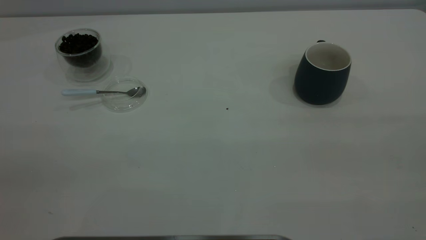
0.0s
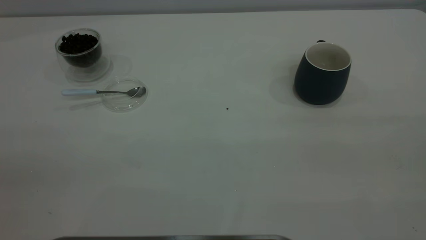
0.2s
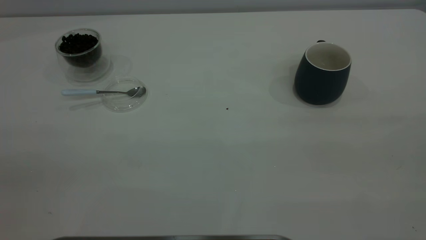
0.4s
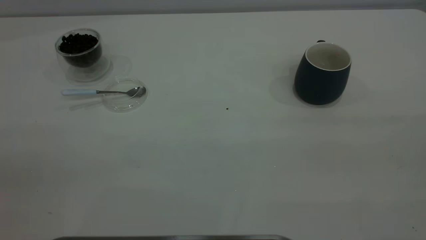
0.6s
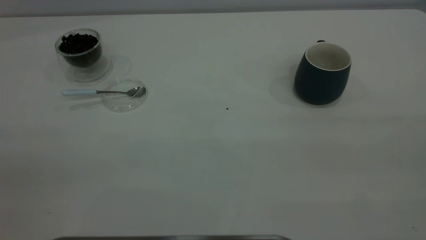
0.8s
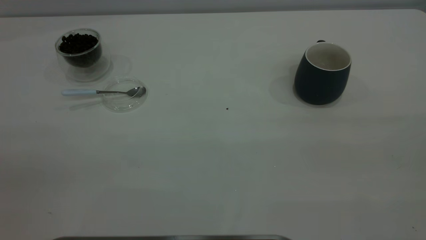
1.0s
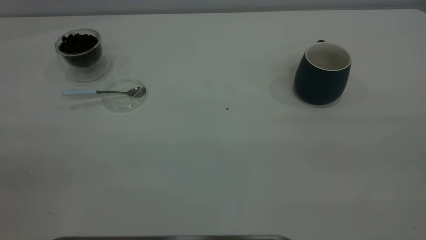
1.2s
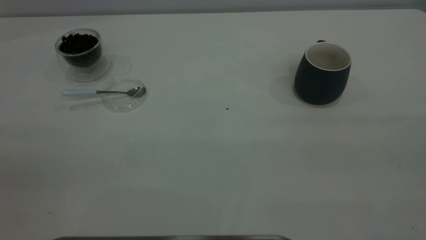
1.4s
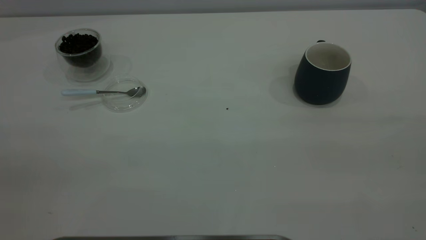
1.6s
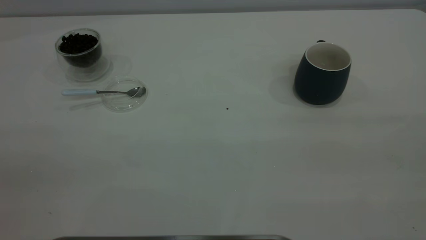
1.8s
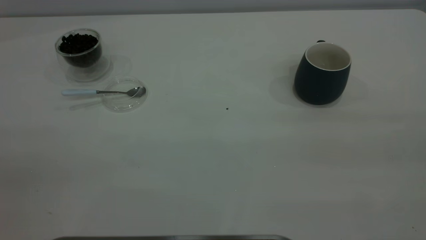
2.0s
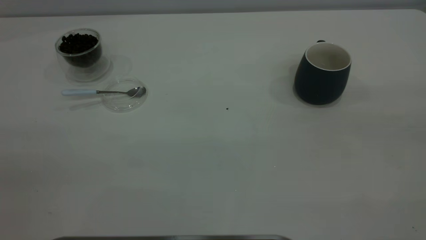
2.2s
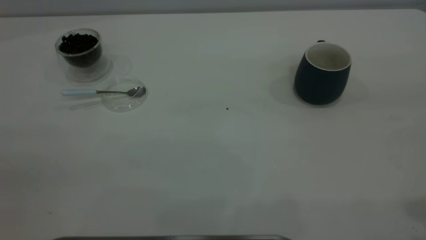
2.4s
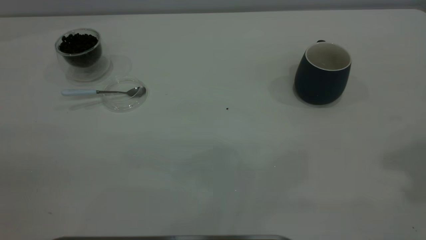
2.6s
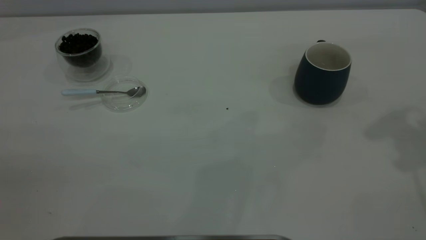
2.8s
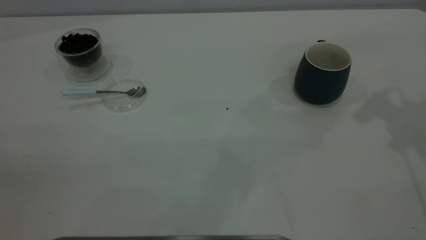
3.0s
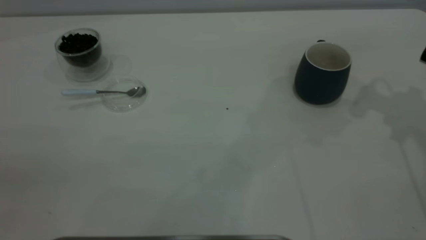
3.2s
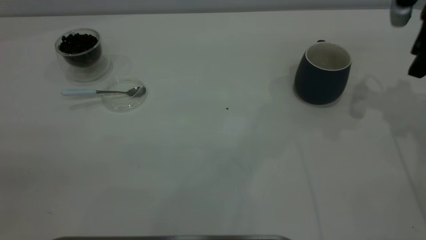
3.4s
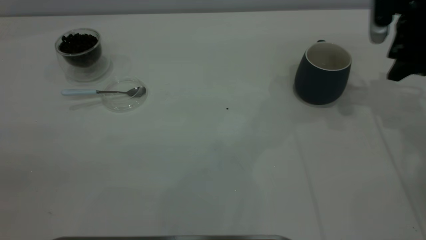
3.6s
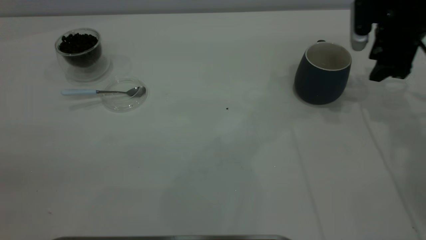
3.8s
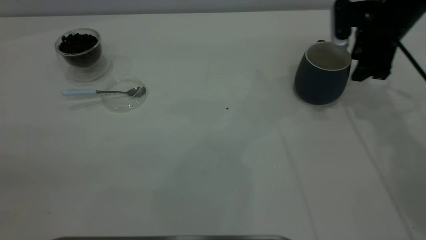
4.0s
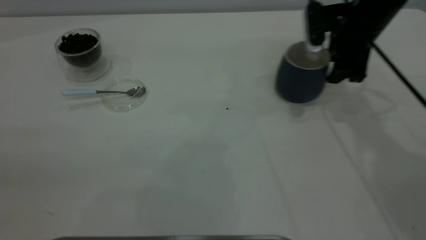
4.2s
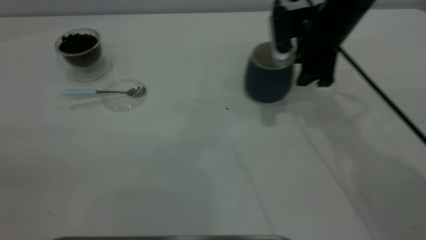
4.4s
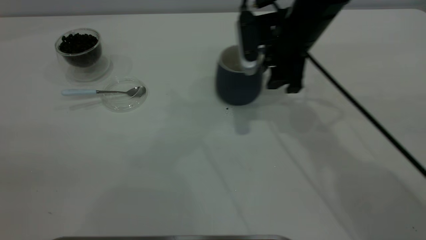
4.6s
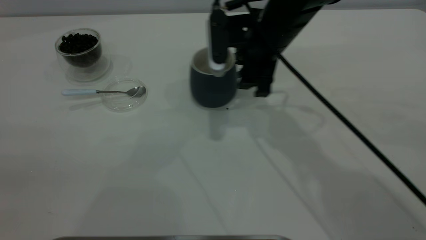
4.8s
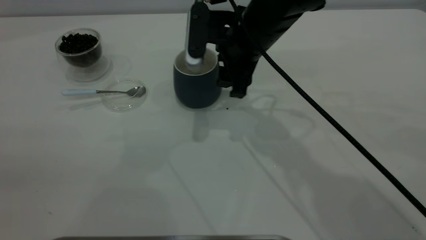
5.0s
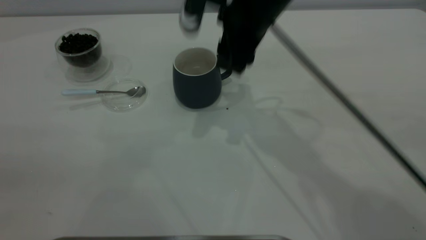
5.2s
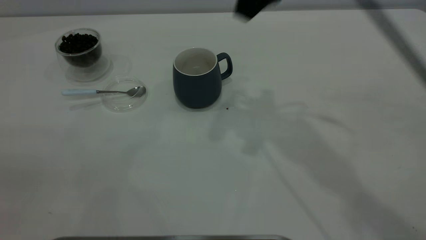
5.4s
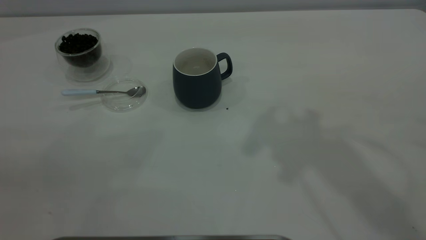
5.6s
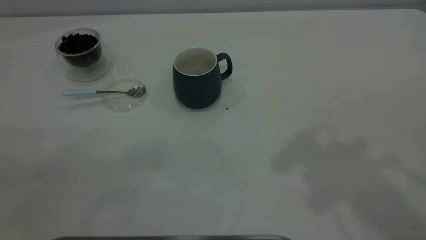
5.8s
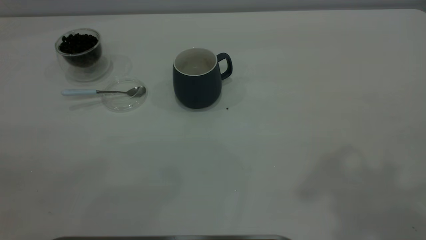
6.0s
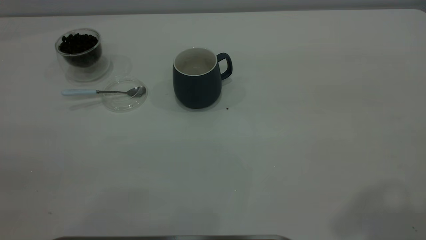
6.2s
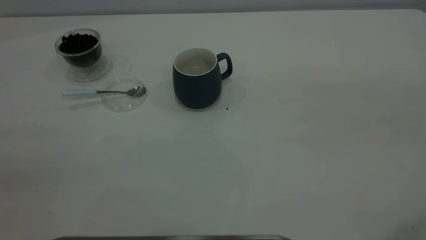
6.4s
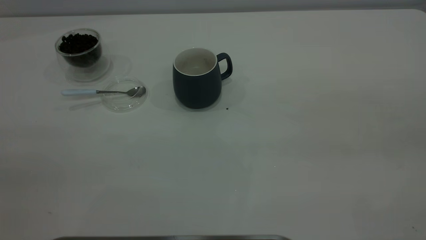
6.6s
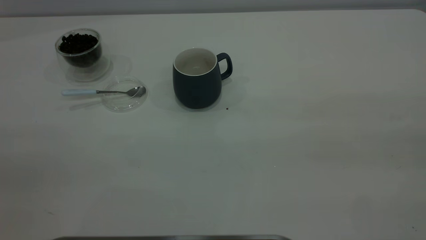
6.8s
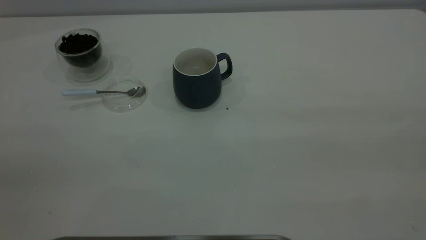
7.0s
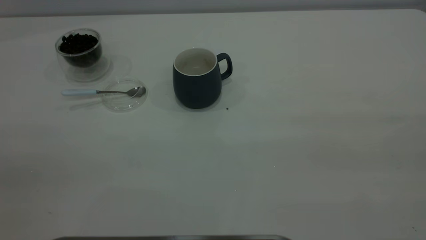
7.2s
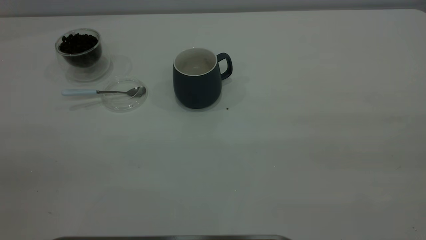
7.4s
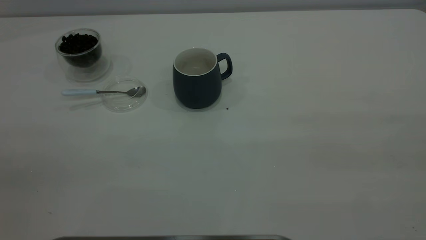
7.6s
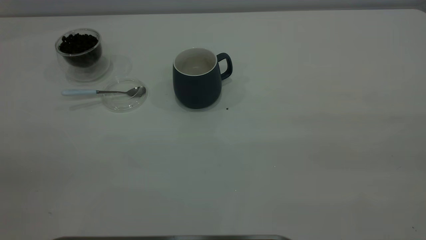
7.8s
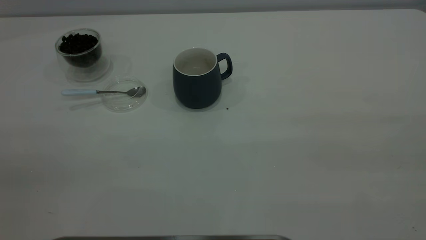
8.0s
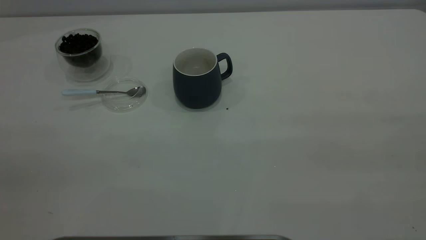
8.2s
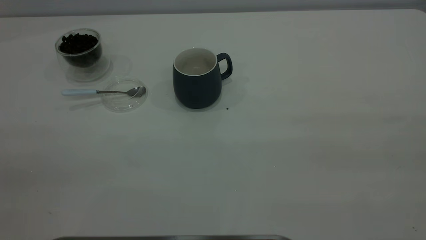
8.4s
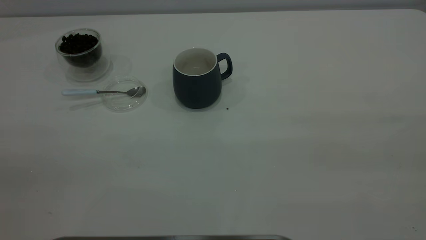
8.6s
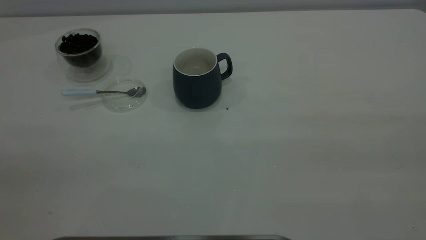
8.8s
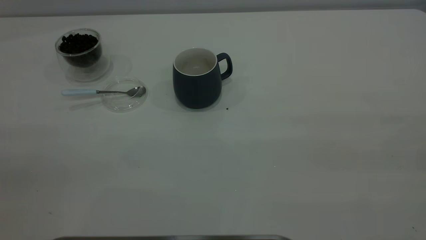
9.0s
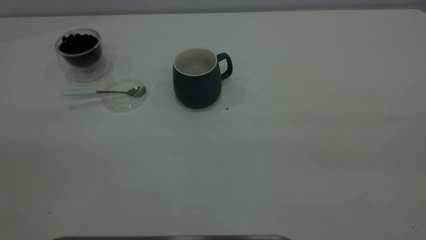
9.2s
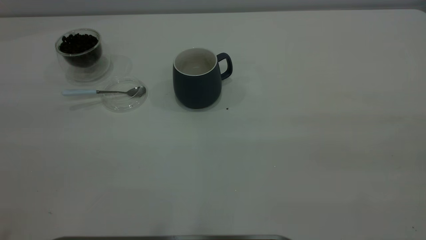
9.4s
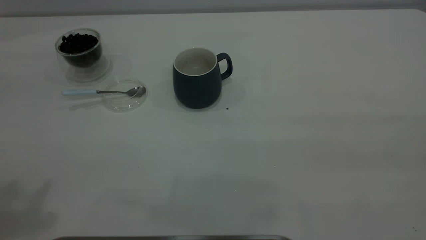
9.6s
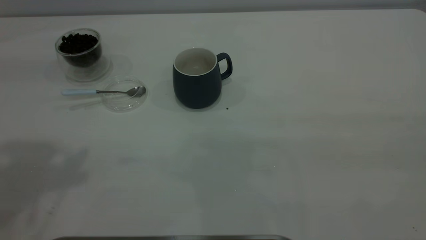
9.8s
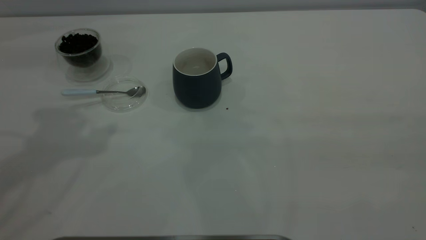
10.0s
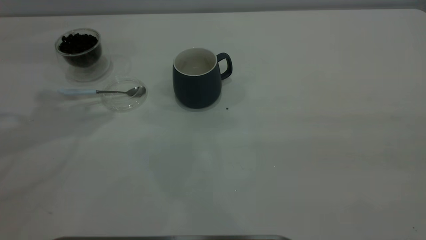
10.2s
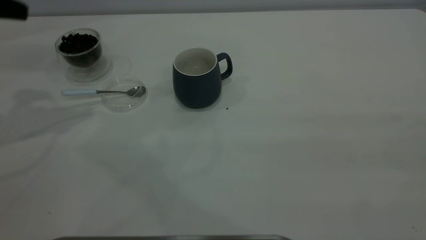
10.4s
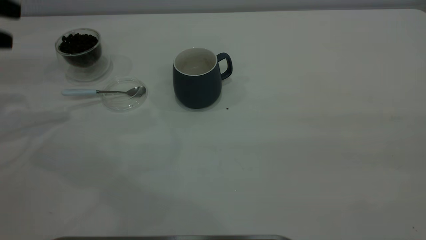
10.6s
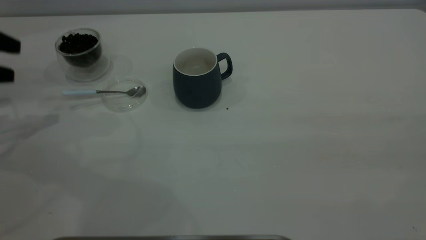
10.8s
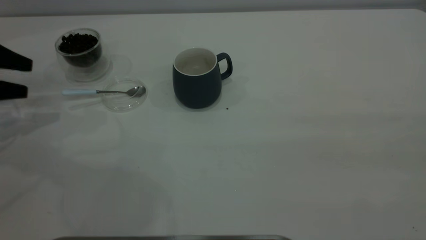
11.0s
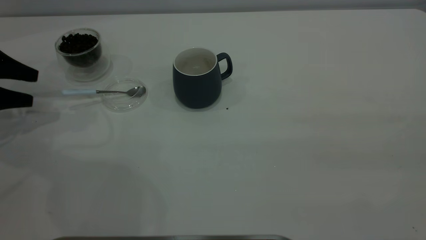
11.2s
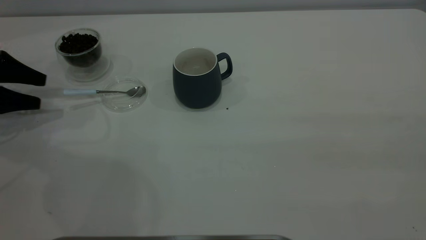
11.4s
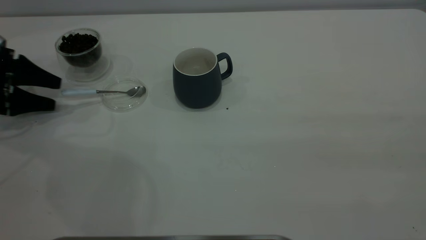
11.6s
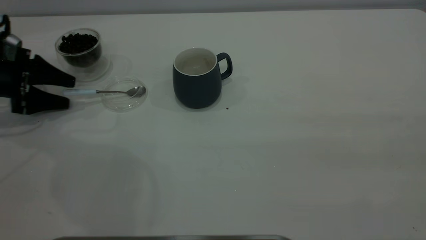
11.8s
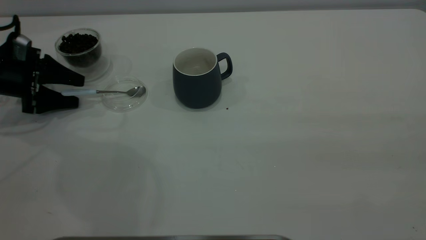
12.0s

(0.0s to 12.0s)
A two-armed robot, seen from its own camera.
Task of the whole recording: the right gripper place the grey cup in the center of the table, the left gripper take the blue spoon from the cup lid and scoop out the coffee beans from the coffee cup and put them into the grey cup, the left gripper put the spoon back into the cup lid.
Step, 0.0s - 5.2s: Move the cup to the center of view.
0.0s - 1.6s: Both grippers stay about where they are.
3.0s - 4.4s: The right gripper shifts some 20 cm to the left and downward.
4.4s - 6.0s: The right gripper shifts approximately 40 cm upward and backward.
7.6s - 9.0s: Both grippers stay about where they are.
10.4s - 12.0s: The left gripper goes approximately 20 cm downward.

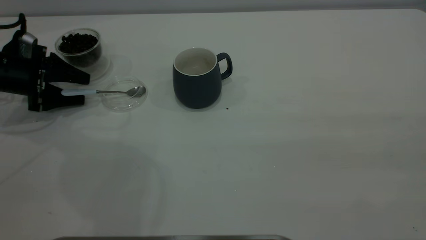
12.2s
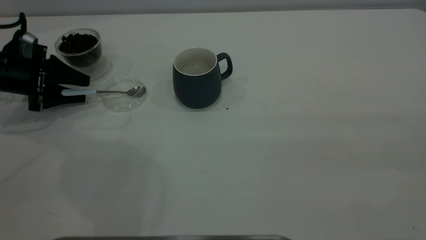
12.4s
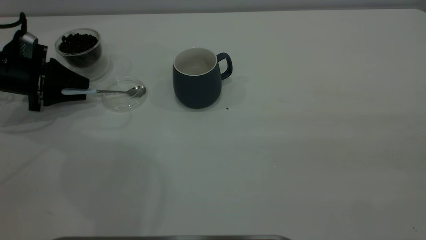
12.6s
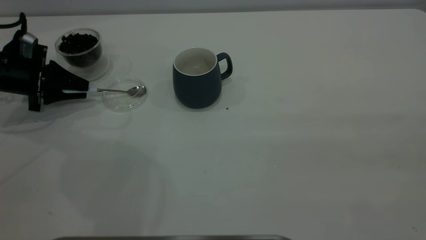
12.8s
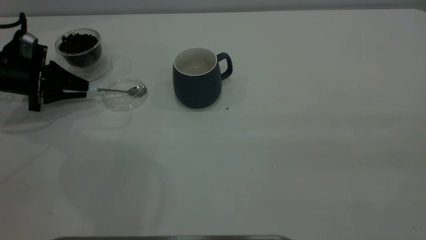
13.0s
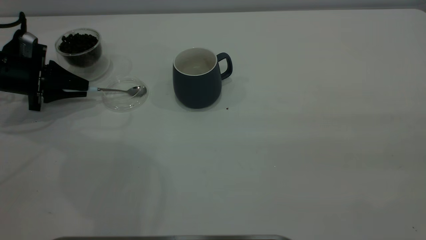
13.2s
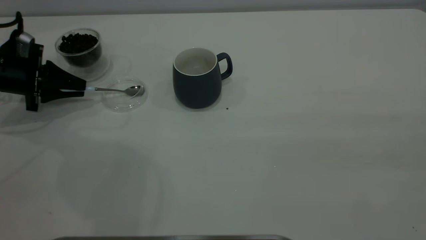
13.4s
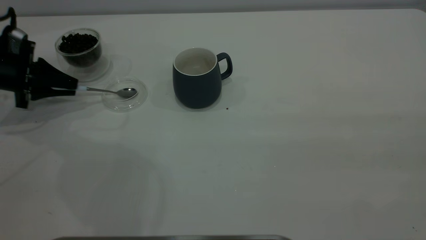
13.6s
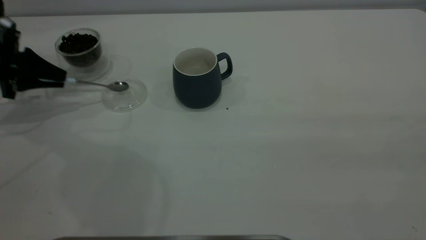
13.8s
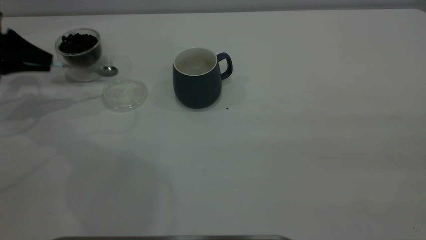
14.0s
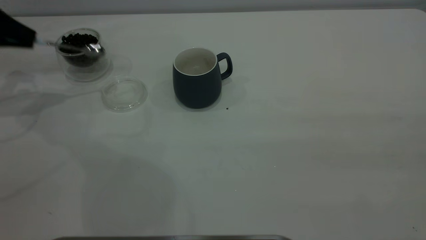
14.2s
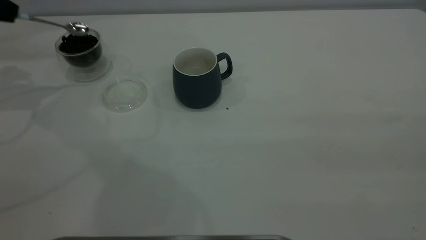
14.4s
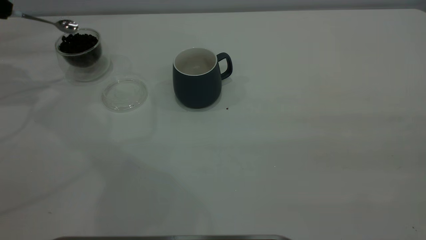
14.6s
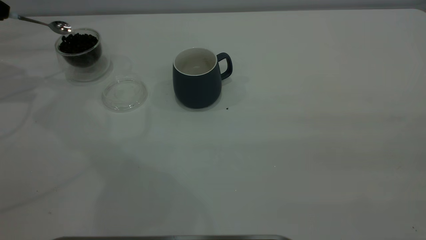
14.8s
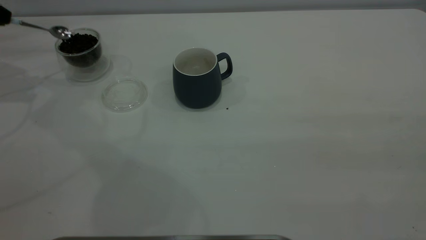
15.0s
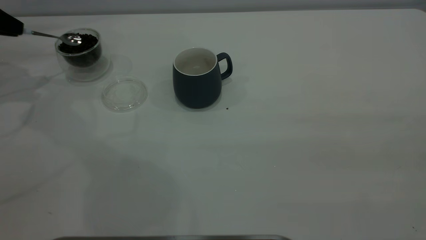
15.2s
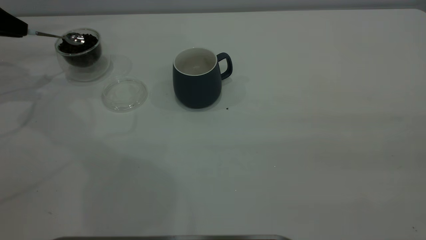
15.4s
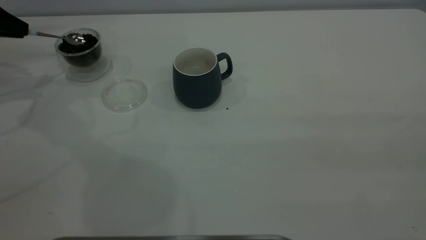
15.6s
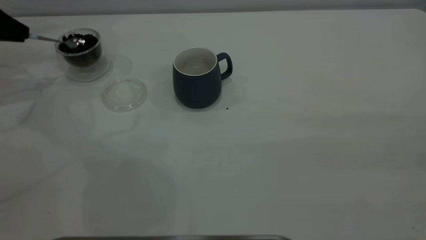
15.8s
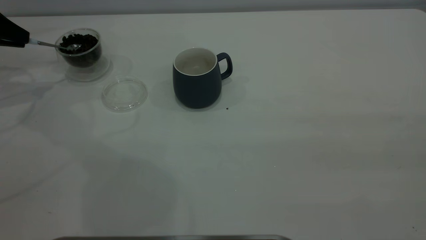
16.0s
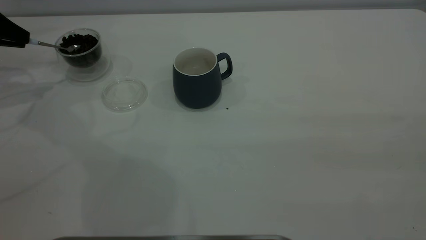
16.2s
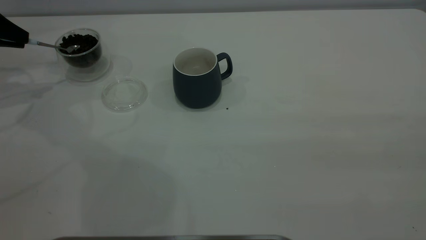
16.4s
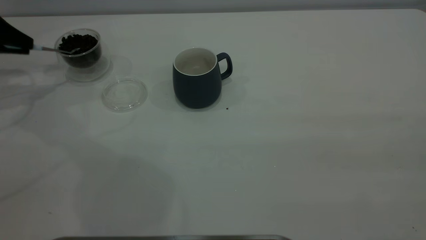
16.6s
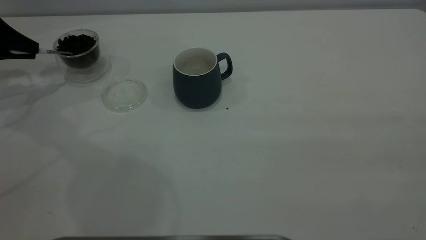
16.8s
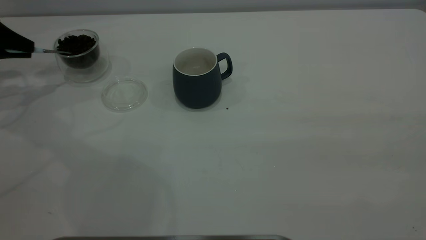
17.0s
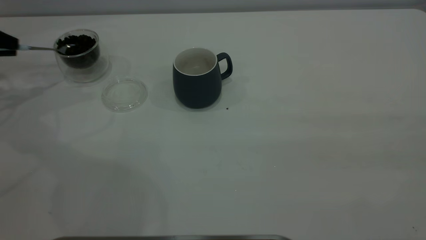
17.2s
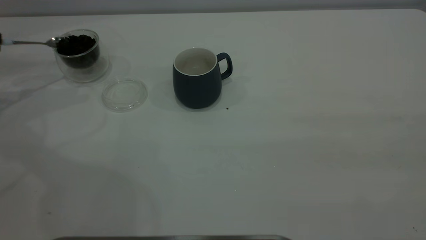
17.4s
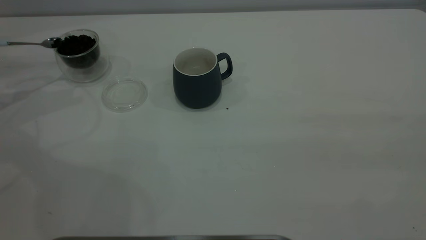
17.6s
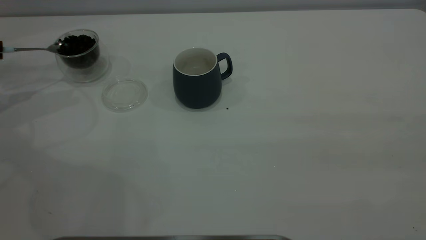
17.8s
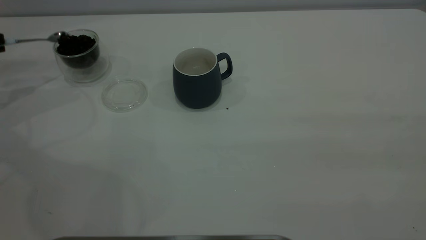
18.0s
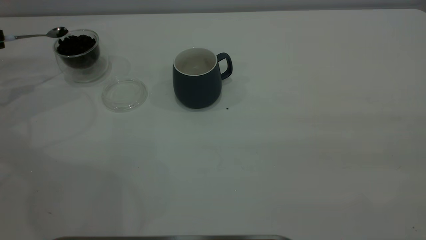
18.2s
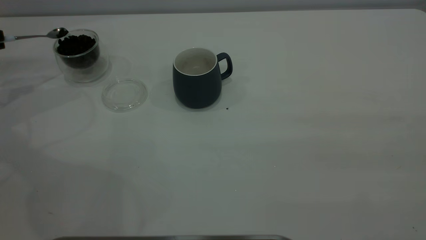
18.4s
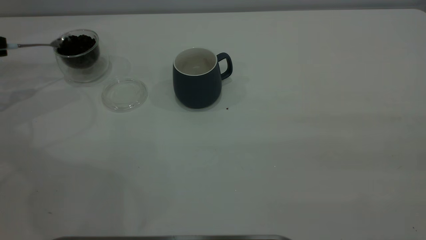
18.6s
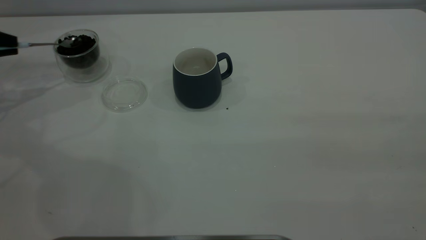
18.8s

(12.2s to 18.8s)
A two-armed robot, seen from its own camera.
Task of the whole recording: the right gripper place the grey cup in the center of the table, the left gripper take the blue spoon from the cup lid and scoop out the coffee beans from the coffee cup and put them into the grey cup, the left gripper put the spoon back into the cup lid.
Step, 12.2s - 14.2s: Pick up the spoon.
12.2s - 13.8s: The left gripper shifts by roughly 5 cm, and closes its fingers.
13.8s - 15.4s: The left gripper is displaced upward by some 5 cm.
